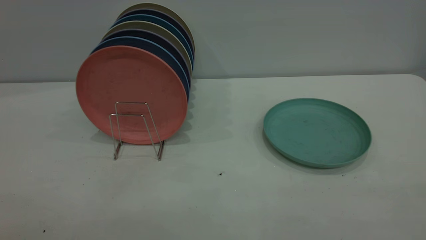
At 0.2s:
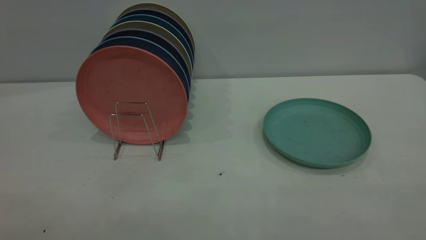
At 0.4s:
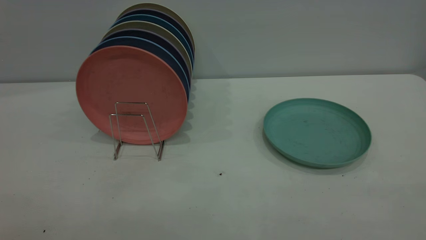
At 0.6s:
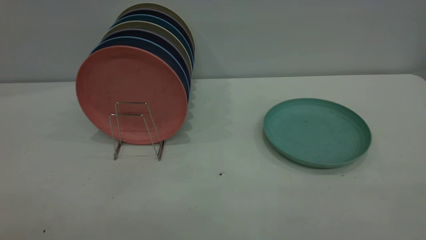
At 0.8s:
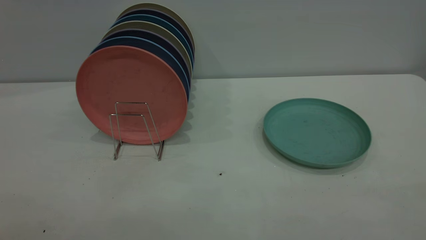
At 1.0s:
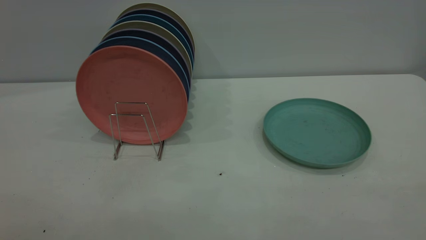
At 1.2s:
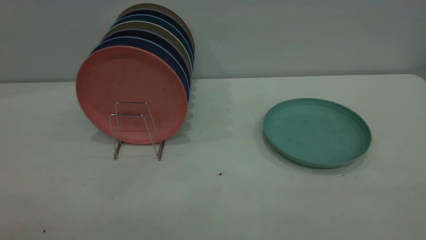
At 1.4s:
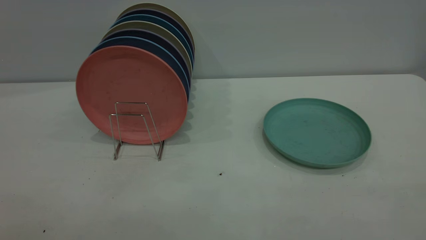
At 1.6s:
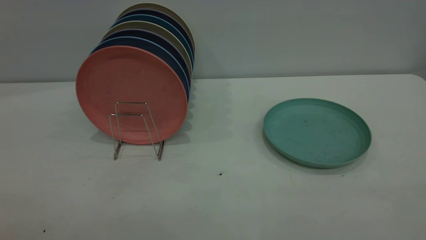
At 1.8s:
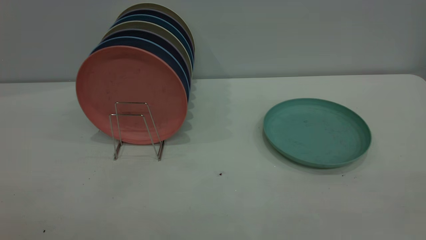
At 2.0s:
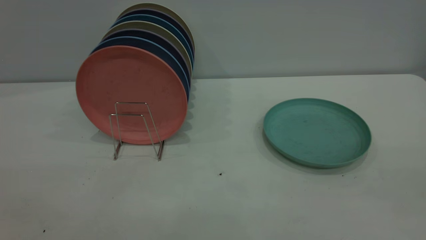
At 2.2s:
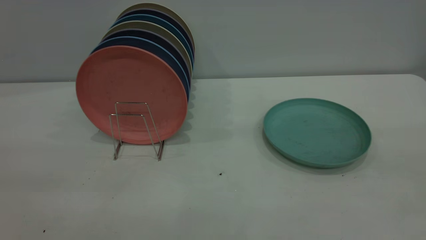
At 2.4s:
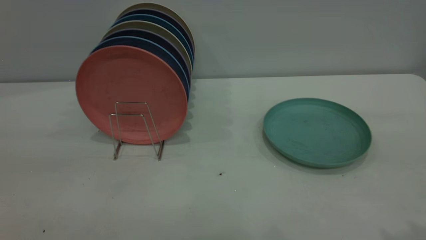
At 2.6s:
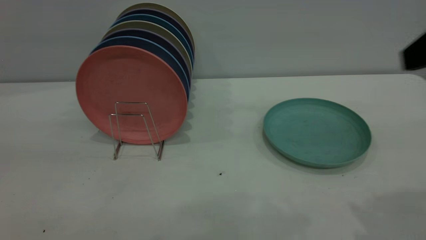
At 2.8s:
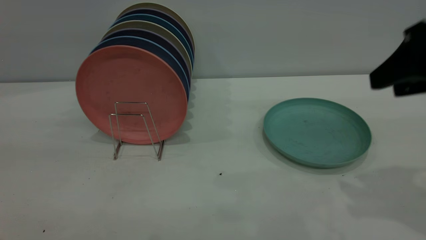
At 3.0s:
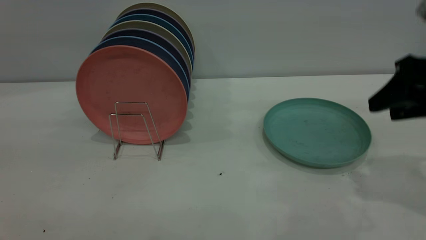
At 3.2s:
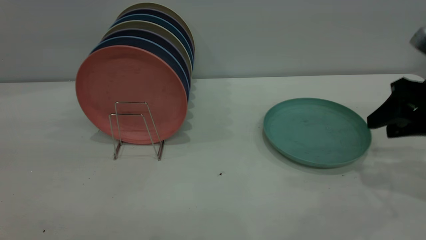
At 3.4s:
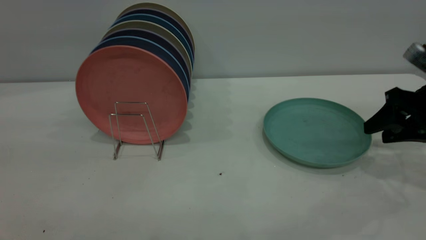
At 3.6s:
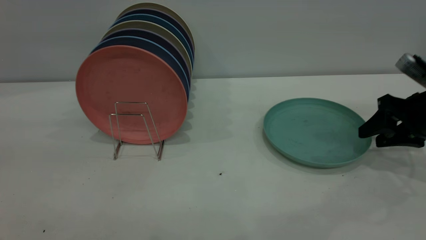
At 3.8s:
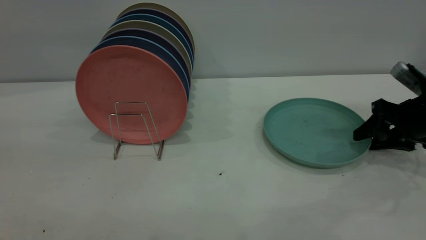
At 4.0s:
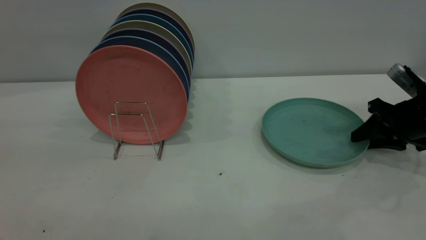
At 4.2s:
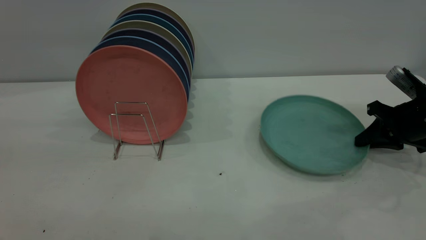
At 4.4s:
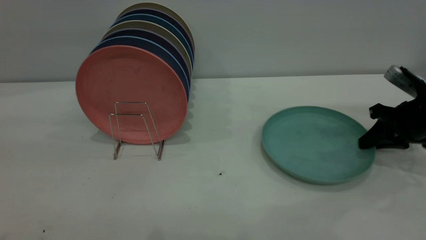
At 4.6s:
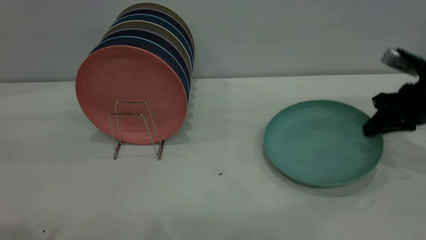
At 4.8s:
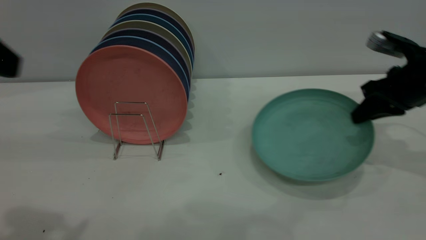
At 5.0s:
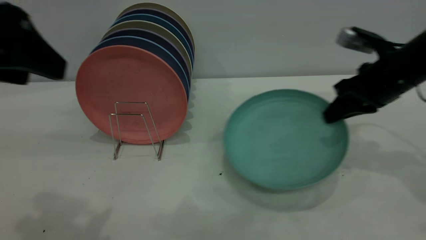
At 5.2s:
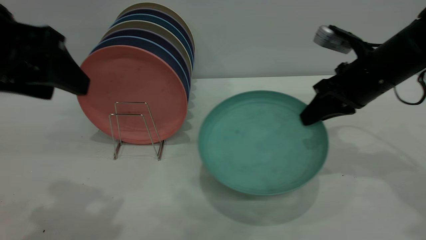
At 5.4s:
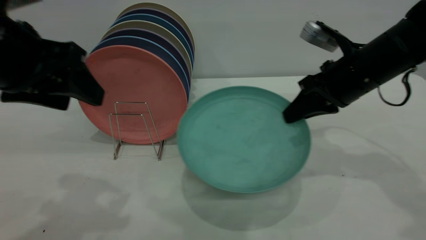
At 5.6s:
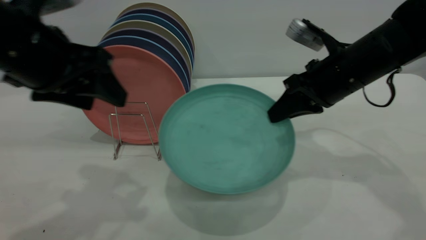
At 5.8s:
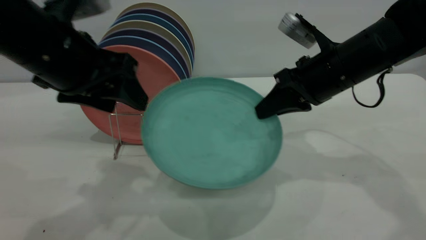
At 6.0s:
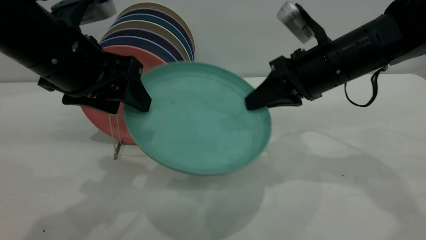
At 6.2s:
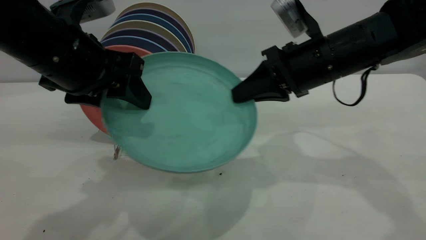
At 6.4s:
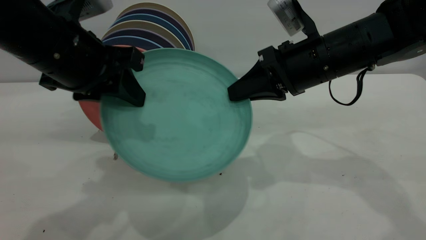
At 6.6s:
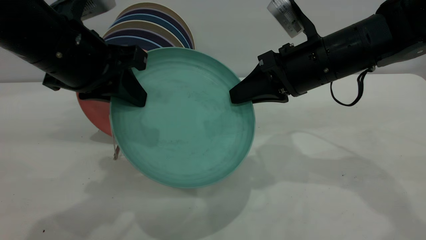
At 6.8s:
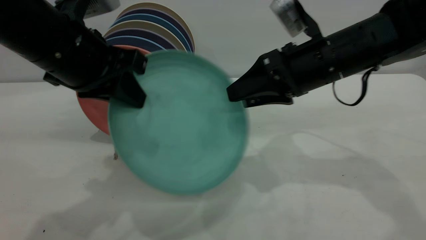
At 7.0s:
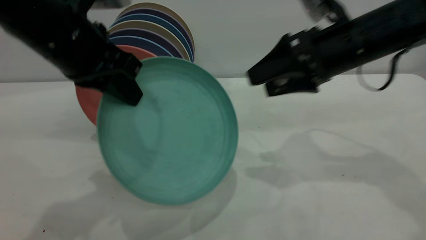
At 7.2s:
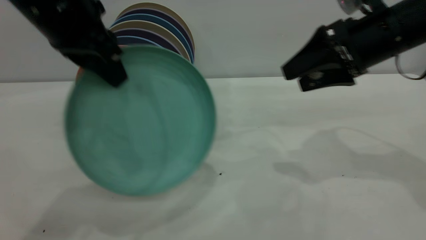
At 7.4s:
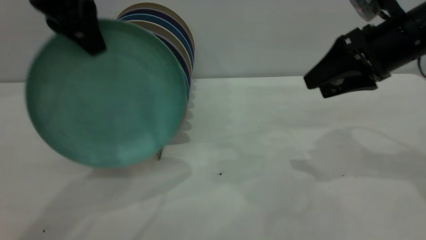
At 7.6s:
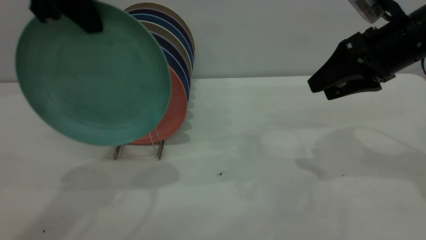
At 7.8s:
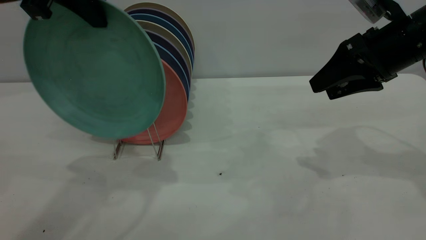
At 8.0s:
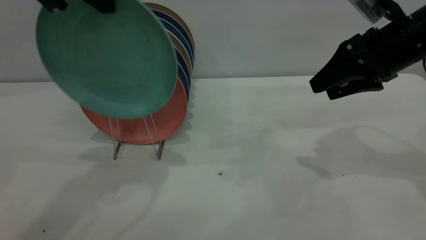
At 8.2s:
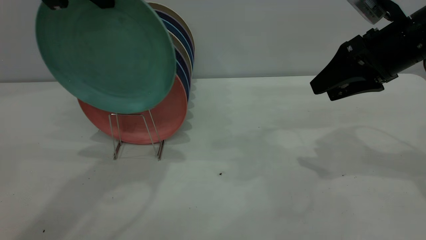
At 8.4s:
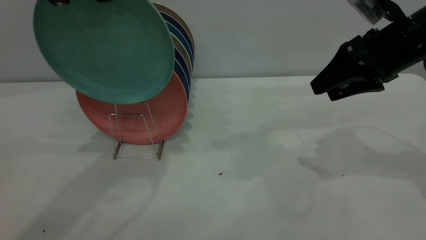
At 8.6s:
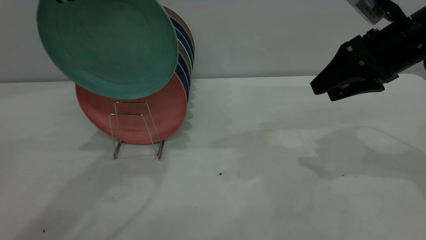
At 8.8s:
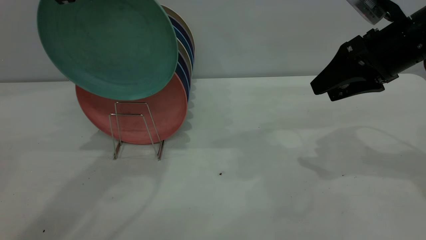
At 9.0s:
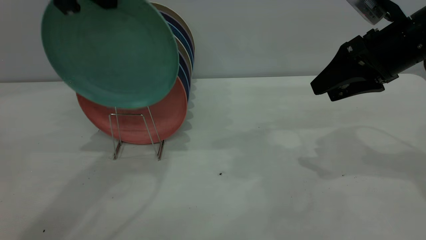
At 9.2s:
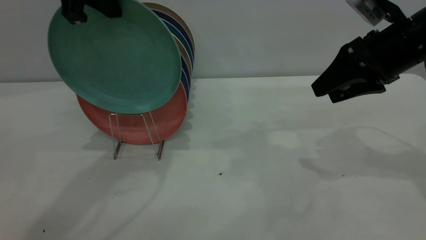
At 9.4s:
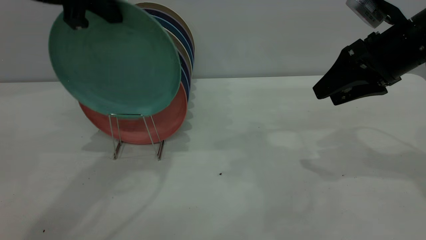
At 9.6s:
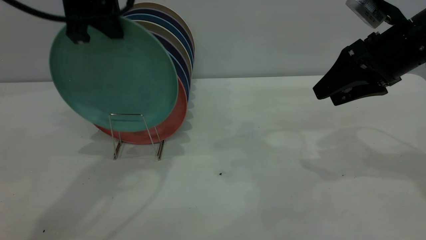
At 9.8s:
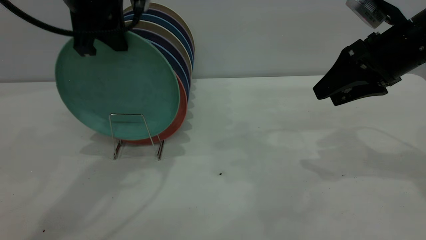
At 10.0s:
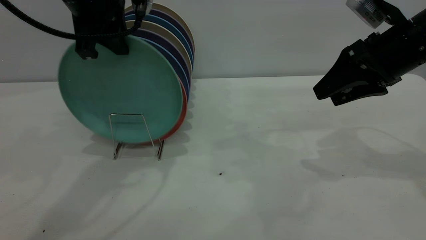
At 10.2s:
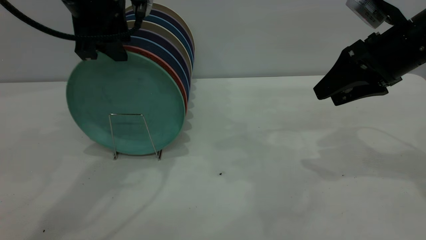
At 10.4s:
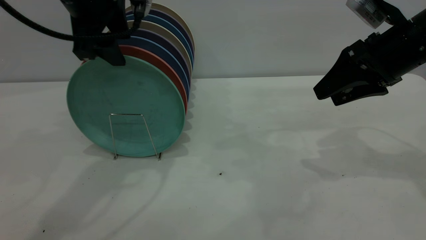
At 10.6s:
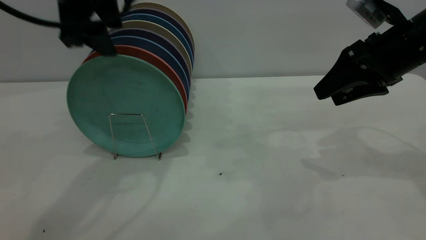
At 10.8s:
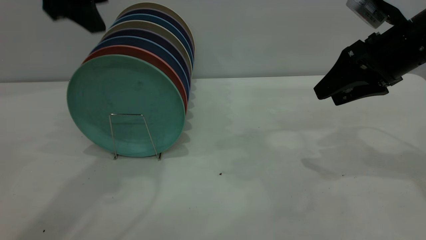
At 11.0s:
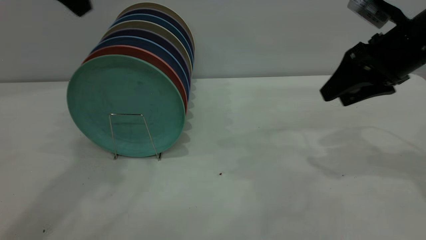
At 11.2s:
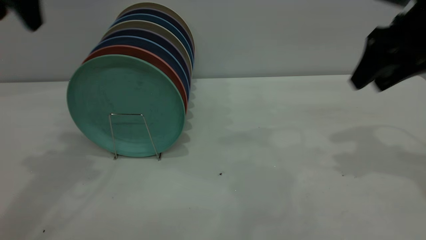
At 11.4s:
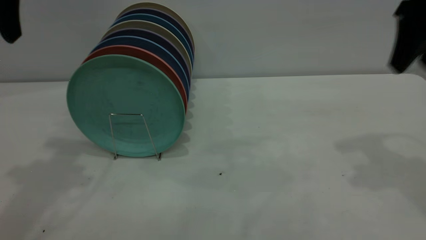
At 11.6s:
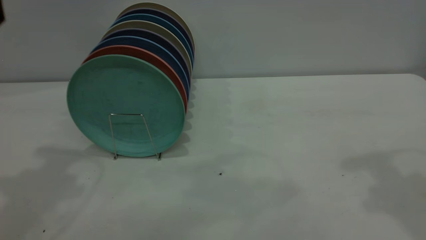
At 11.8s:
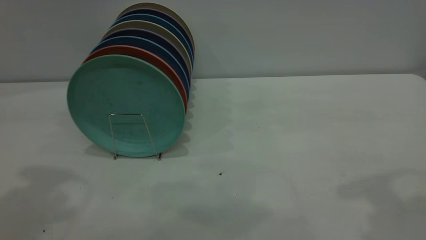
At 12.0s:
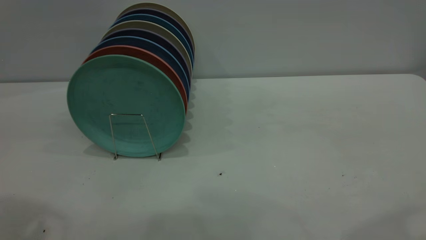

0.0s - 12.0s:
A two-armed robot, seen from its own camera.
Task of the whole recording: the right gripper grasp the green plate, the right gripper pass the green plate to the left gripper, and the left gripper place the green plate on the plate rack.
Step, 0.0s - 4.6s: Pick up the plate with the right gripper.
Step, 5.0s - 6.8s: Pass the plate from the right gripper to the left gripper.
Step, 7.0s - 10.6s: Place the plate on the shelf.
0.0s - 1.6s: Both grippers stay put.
1.6s - 3.0s: The right gripper shifts about 35 cm forward and downward.
3.0s - 4.4s: The right gripper travels downward and forward by approximately 15 cm, and closes.
4.4s - 6.0s: The left gripper goes about 20 cm forward, downward and to the right. Meanwhile the right gripper travels to the left and upward by roughly 20 cm.
6.0s - 7.6s: The left gripper heads upward, covering about 10 cm, and closes up. Meanwhile the right gripper heads to the right, covering approximately 10 cm, and opens its fingers.
7.6s - 9.0s: The grippers stay close to where they were, moving slightly.
9.0s - 10.4s: The left gripper goes roughly 5 cm downward, and opens.
10.4s - 12.0s: The right gripper heads upward and backward, covering about 30 cm. Meanwhile the left gripper is displaced backward, upward and to the left by about 25 cm.

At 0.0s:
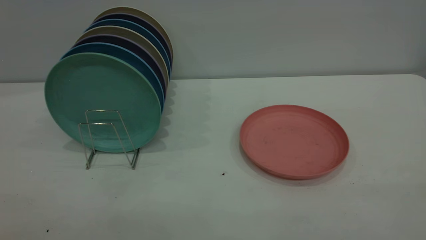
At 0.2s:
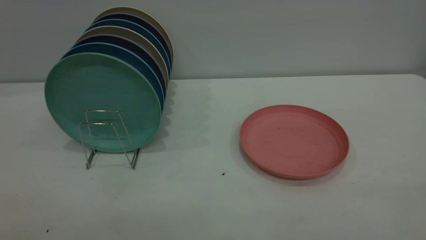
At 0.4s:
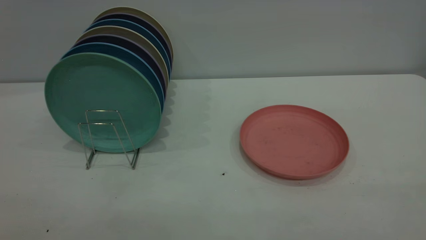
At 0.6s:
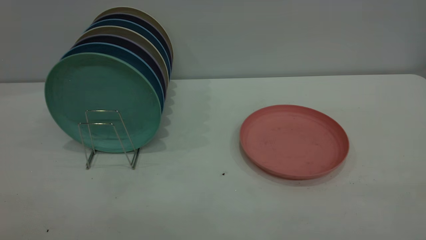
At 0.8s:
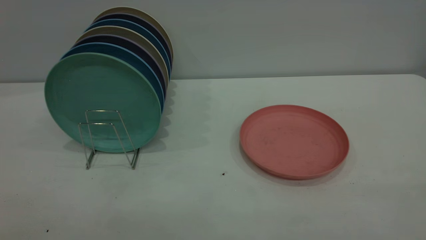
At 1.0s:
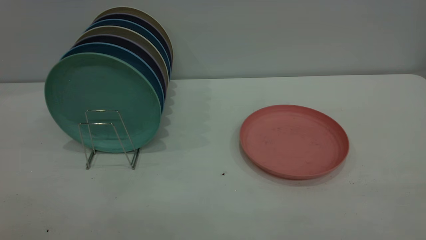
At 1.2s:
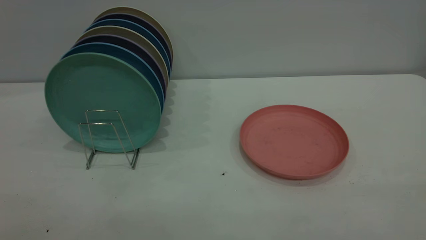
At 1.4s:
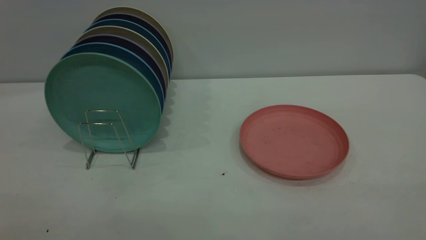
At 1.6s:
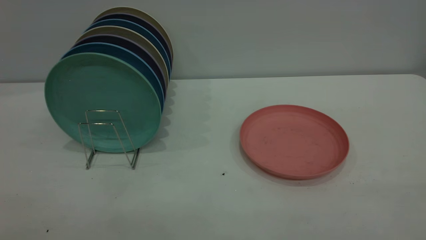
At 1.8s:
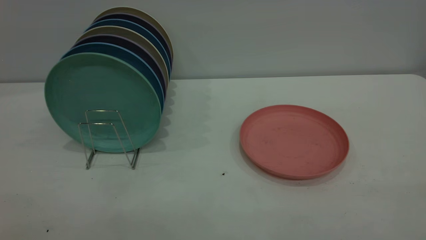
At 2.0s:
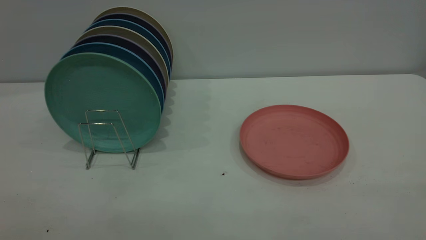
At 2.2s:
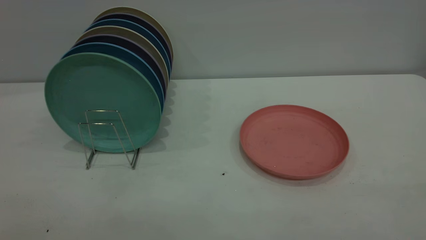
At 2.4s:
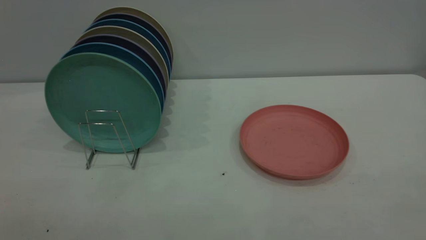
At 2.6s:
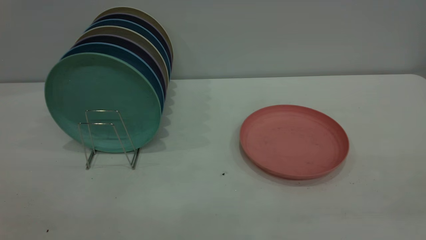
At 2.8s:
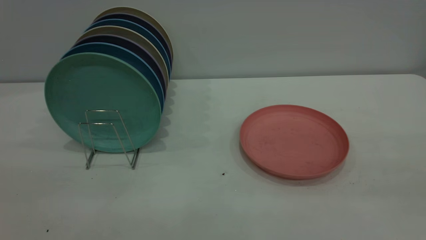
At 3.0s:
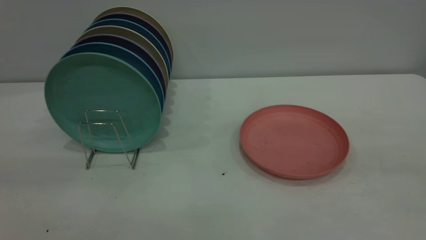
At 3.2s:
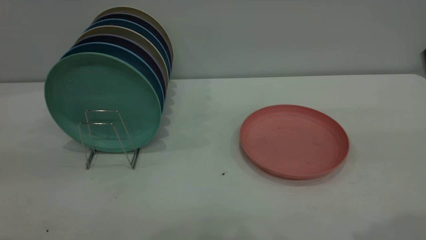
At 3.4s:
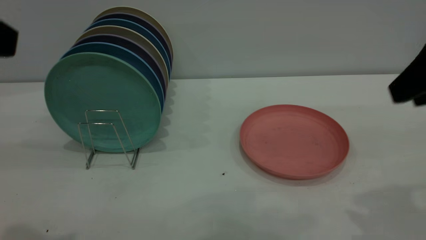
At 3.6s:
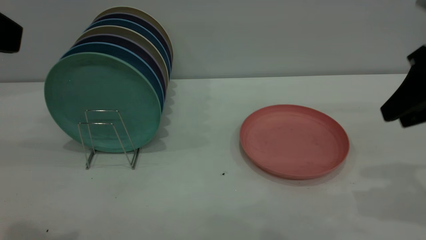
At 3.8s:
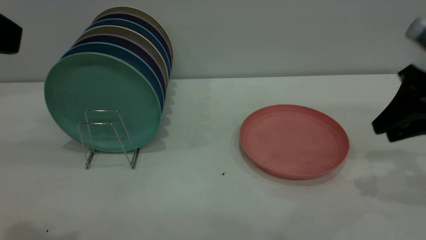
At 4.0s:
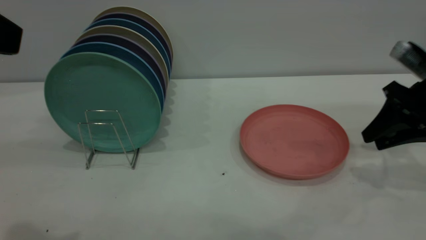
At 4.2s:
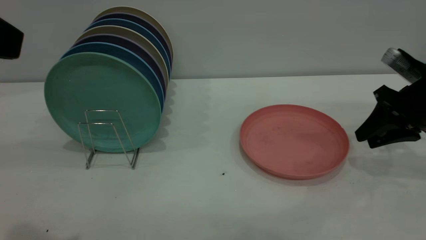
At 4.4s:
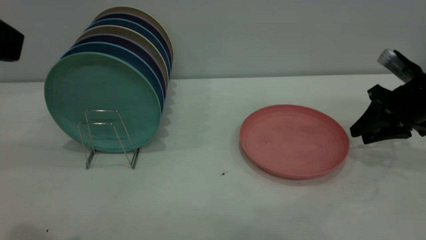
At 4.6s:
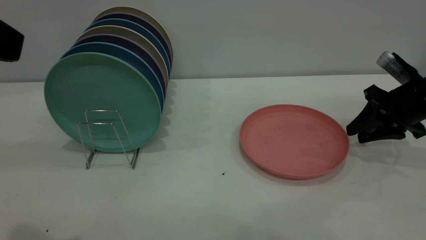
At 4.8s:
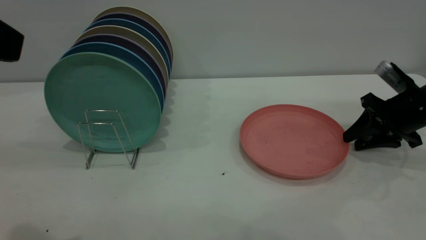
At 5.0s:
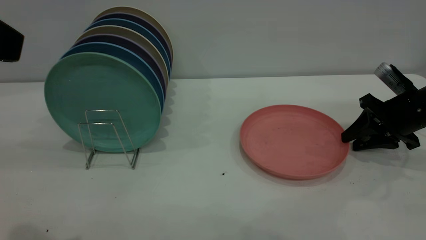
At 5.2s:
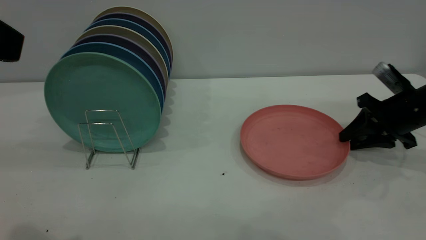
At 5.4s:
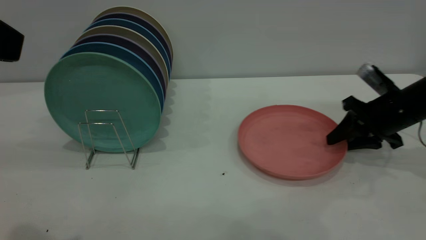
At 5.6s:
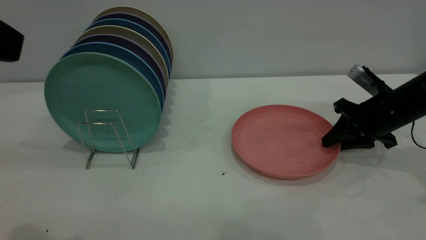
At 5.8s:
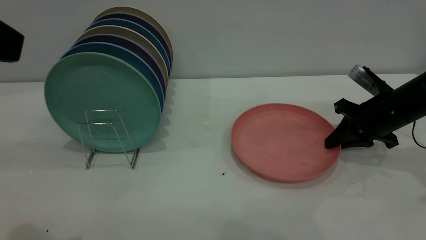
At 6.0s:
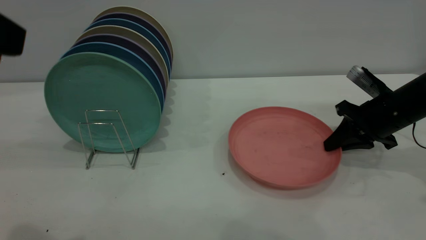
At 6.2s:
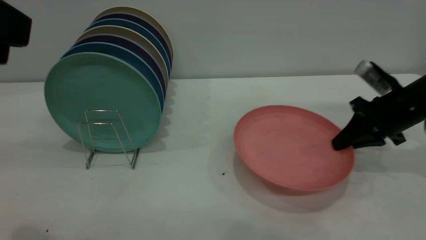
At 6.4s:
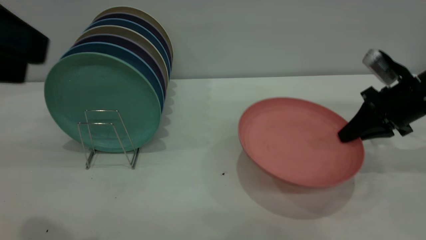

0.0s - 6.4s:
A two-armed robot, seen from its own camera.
Task of the whole recording: the right gripper grasp the pink plate, the right gripper pass the pink plate to the left gripper, and the left gripper place the pink plate on the plate rack.
Step, 0.0s - 6.2s: Pick up the plate with the right gripper.
0.0s - 1.6s: Neither gripper changes place.
3.2s - 4.8s: The right gripper heads downward and forward, covering some 30 cm.
4.8s - 6.4s: The right gripper closes.
